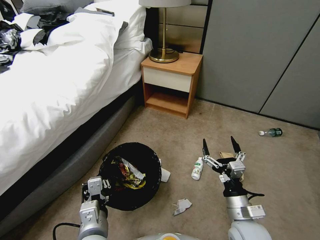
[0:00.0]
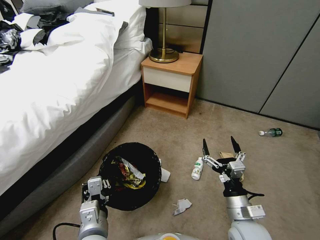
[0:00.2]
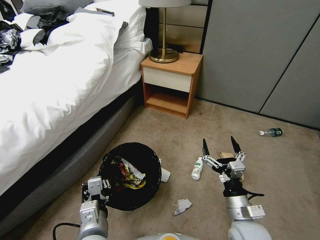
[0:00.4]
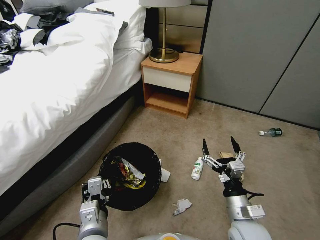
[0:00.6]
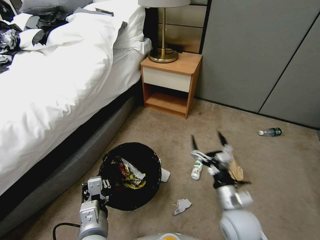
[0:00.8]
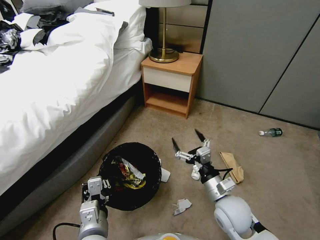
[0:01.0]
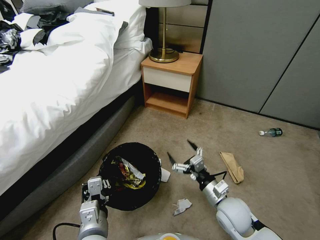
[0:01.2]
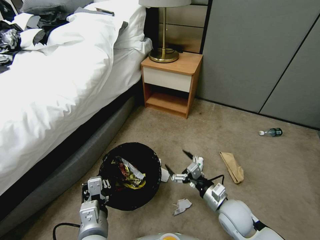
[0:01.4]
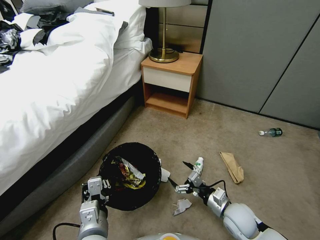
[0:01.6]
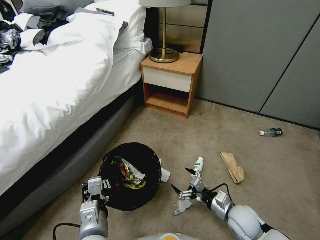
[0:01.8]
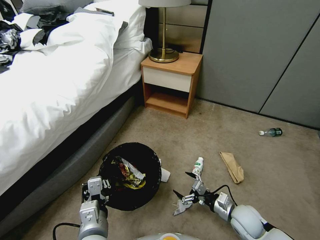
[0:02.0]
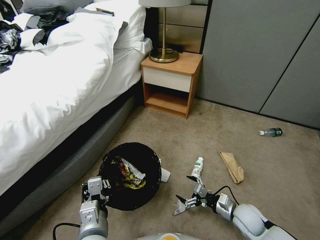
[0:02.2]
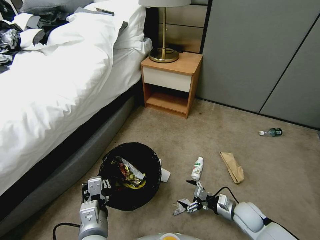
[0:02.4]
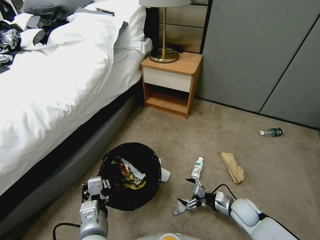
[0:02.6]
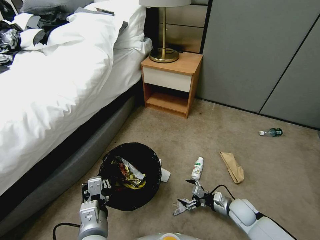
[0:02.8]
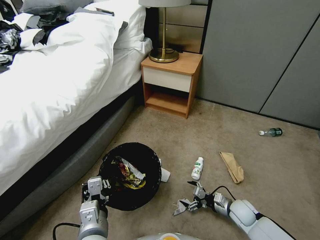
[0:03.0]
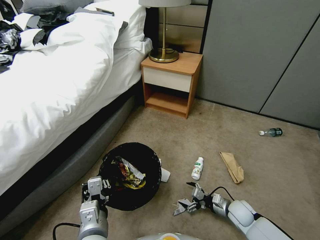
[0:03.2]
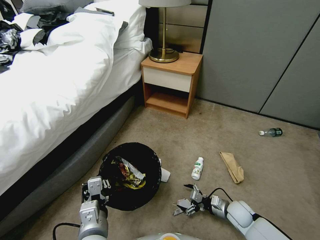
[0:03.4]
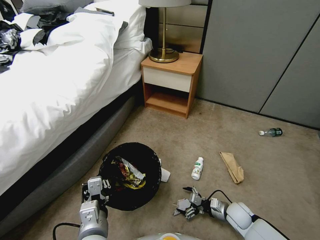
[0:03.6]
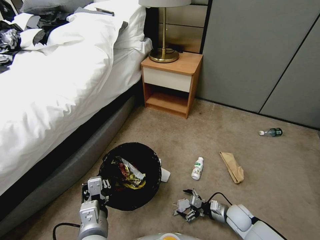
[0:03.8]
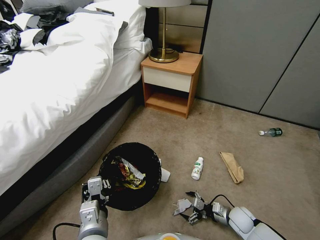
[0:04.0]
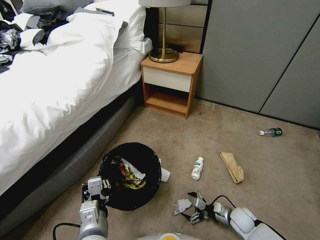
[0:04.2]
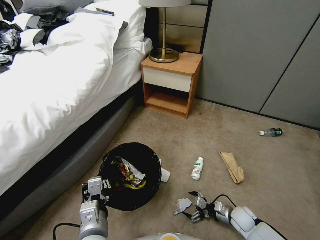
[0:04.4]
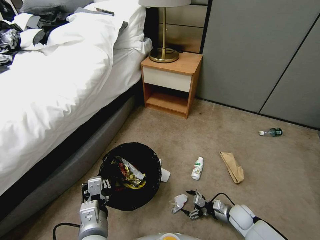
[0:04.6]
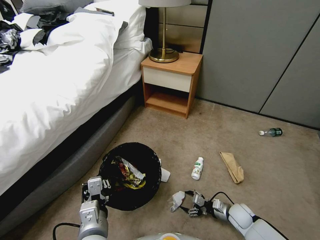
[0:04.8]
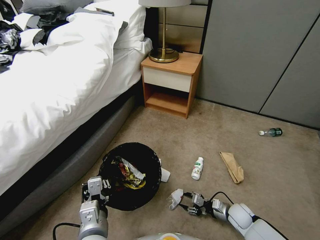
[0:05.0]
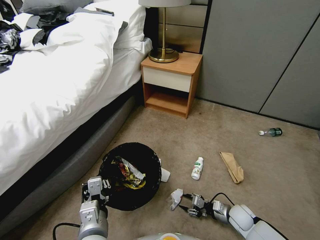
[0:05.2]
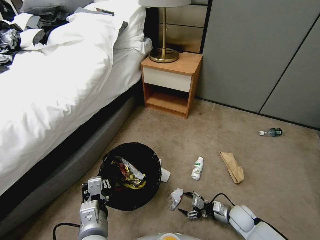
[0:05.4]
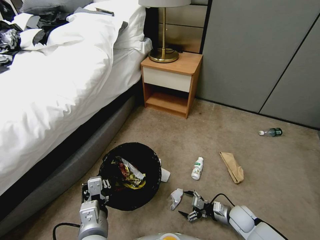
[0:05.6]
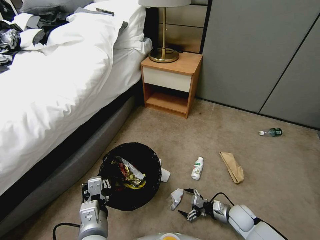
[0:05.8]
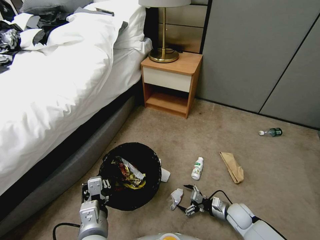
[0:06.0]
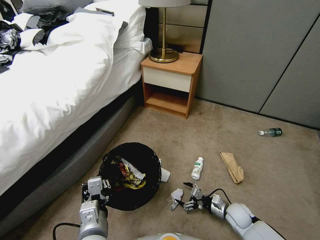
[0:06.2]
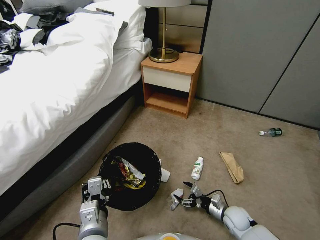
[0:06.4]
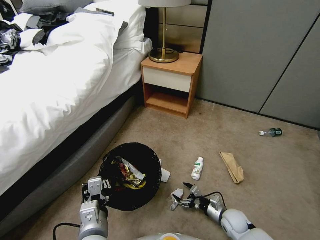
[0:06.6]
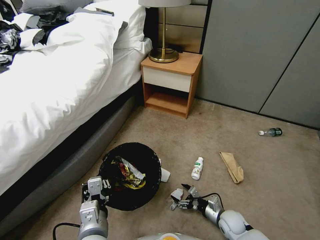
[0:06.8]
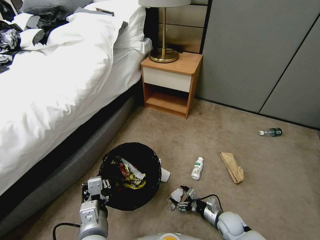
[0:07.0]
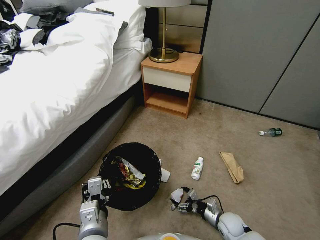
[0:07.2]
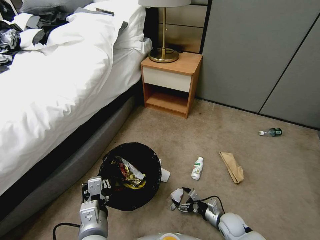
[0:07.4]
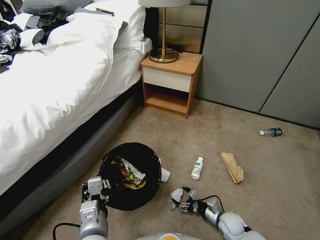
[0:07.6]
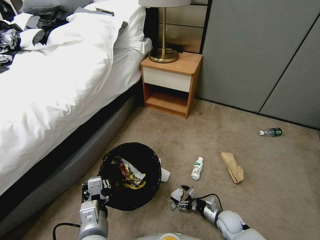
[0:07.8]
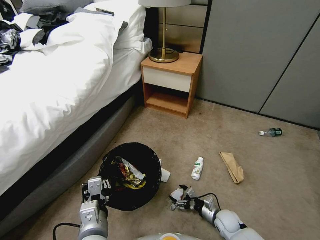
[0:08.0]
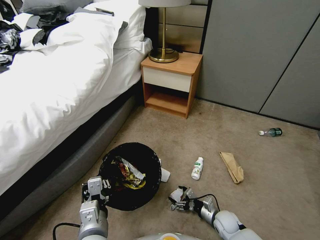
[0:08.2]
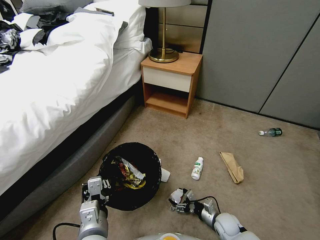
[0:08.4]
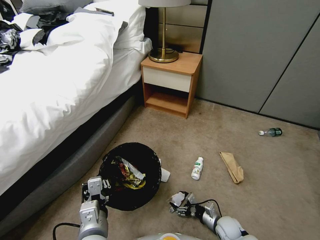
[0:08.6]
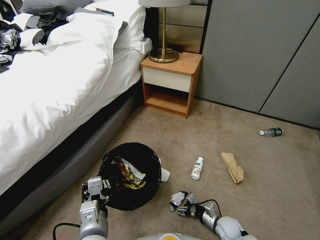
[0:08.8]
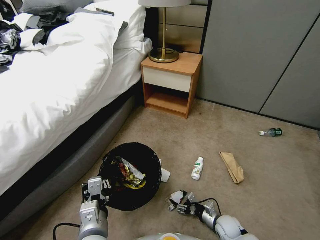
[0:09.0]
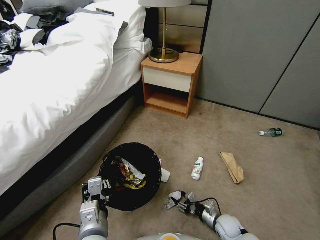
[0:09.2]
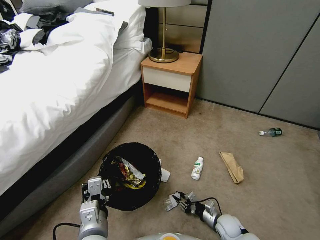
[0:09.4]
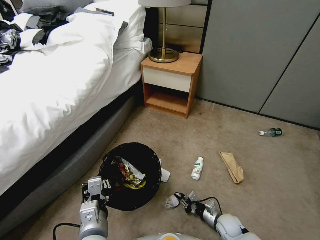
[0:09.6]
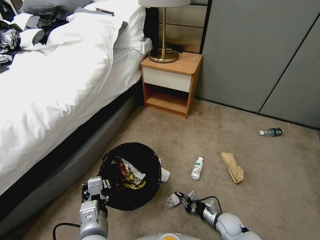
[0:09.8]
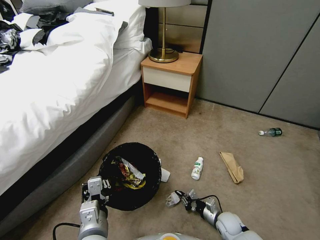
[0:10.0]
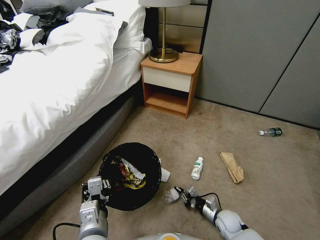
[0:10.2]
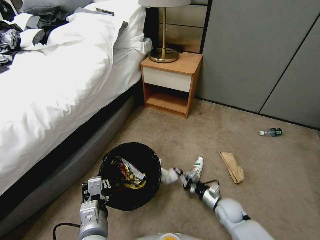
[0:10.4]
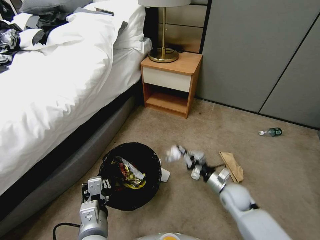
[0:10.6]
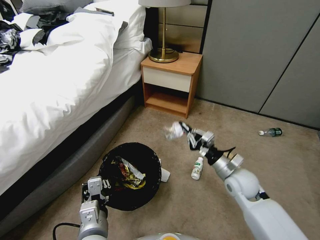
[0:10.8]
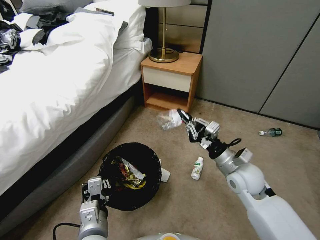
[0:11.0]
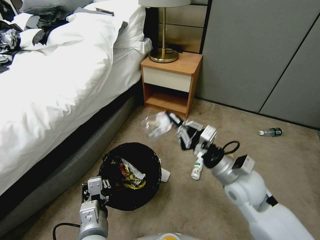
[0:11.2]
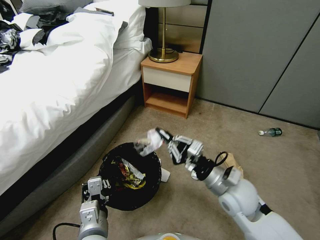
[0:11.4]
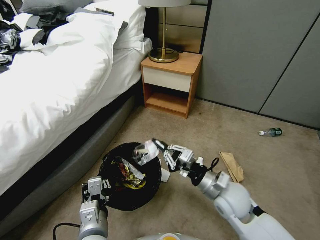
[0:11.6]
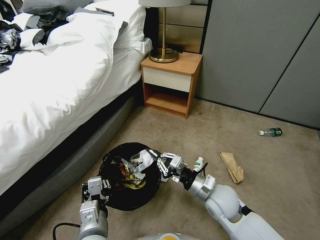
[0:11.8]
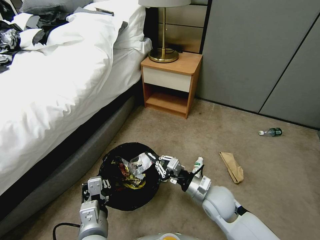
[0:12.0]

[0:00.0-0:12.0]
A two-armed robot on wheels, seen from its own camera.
Task of the whole recording: Pick up the trash bin, then pick up the garbage from the floor and place it into the trash bin.
0:00.0 to 0:01.6: The right gripper goes about 10 cm downward and forward.
0:01.6 to 0:03.0: The right gripper goes roughly 15 cm downward and to the right.
0:03.0 to 0:04.4: There are only small adjustments of the grippers.
0:04.4 to 0:06.0: The right gripper closes, then reopens.
0:06.0 to 0:07.6: The right gripper shifts by roughly 5 cm.
0:07.6 to 0:09.0: The grippers make only small movements.
0:09.0 to 0:10.4: The right gripper travels upward by about 5 cm, and closes up.
0:10.4 to 0:12.0: The right gripper shifts some 20 cm upward and to the left.

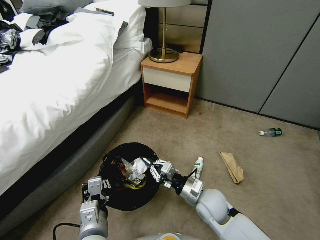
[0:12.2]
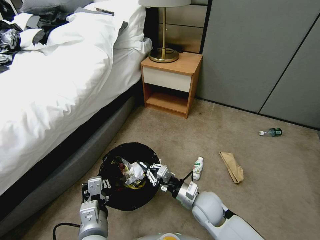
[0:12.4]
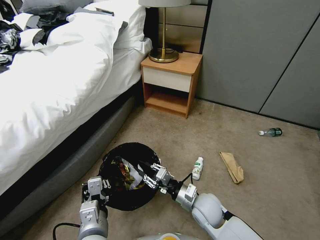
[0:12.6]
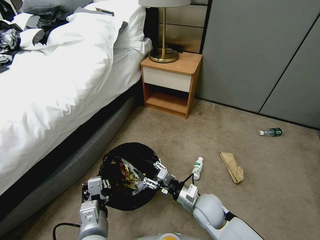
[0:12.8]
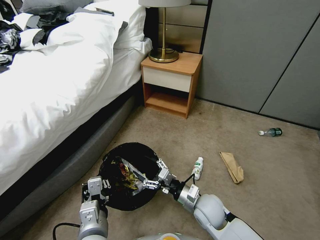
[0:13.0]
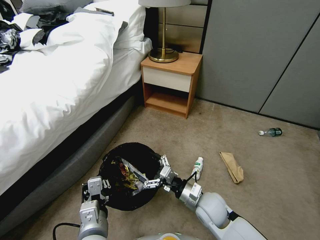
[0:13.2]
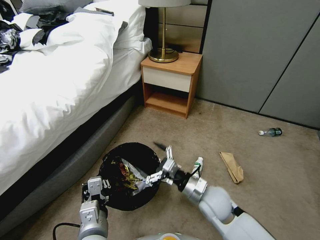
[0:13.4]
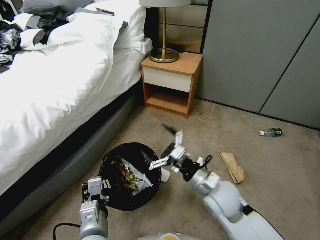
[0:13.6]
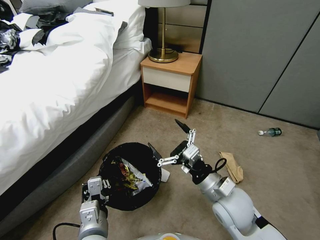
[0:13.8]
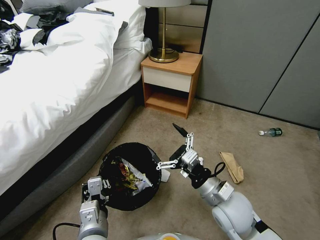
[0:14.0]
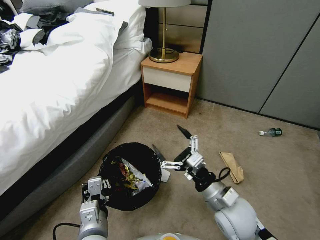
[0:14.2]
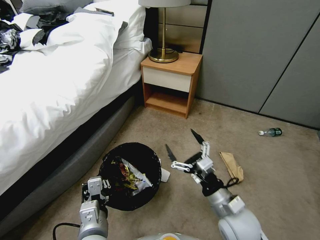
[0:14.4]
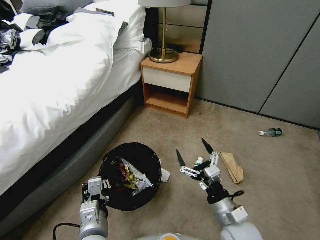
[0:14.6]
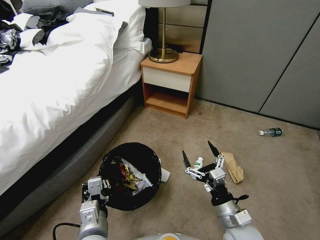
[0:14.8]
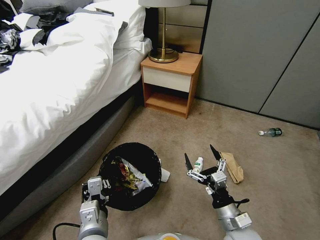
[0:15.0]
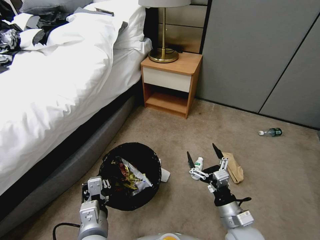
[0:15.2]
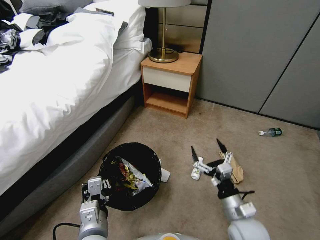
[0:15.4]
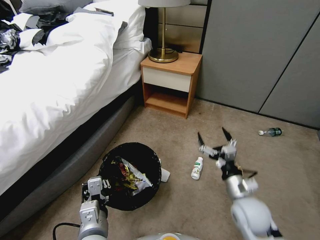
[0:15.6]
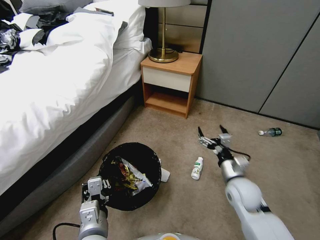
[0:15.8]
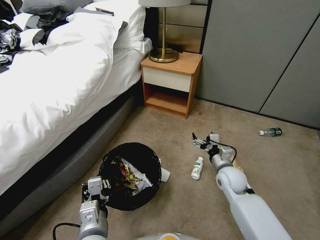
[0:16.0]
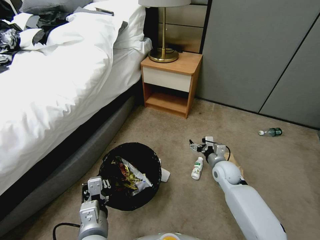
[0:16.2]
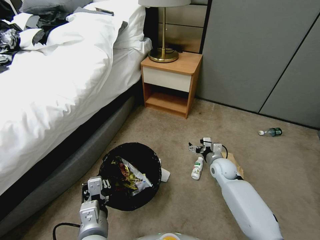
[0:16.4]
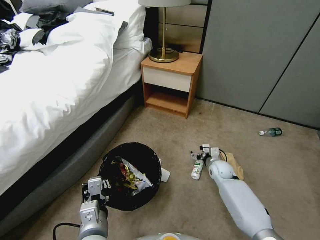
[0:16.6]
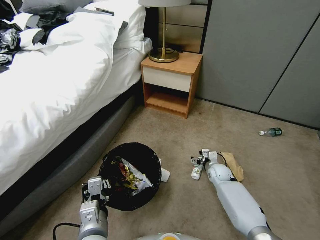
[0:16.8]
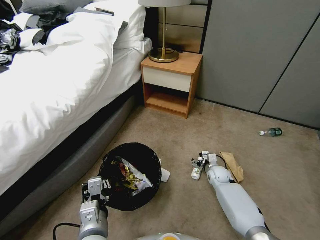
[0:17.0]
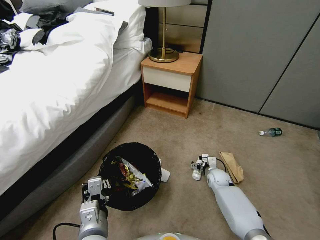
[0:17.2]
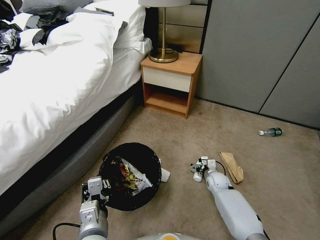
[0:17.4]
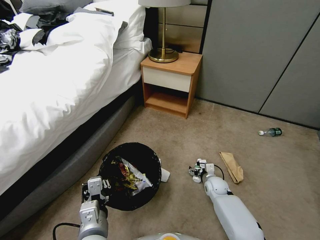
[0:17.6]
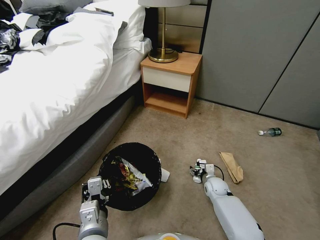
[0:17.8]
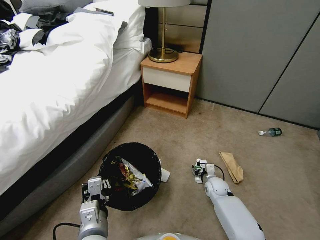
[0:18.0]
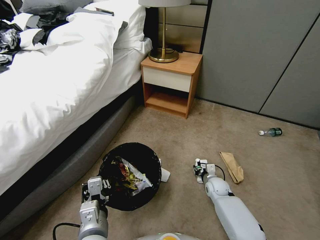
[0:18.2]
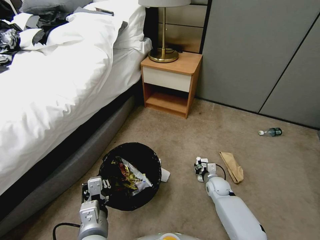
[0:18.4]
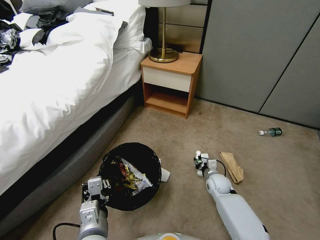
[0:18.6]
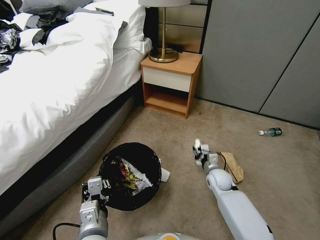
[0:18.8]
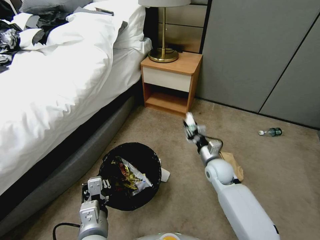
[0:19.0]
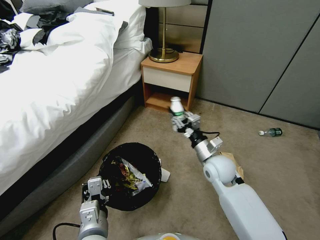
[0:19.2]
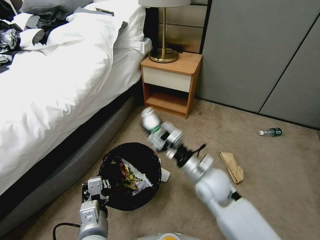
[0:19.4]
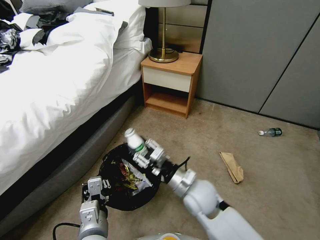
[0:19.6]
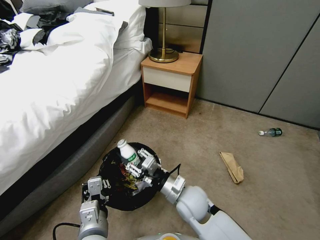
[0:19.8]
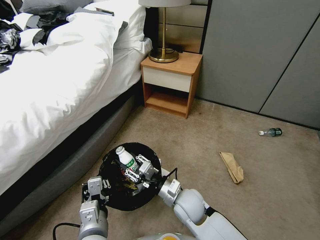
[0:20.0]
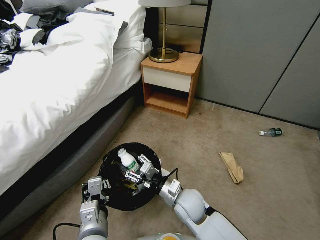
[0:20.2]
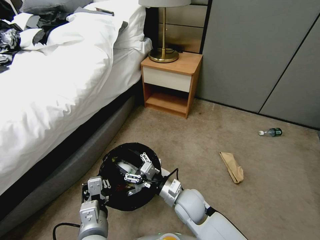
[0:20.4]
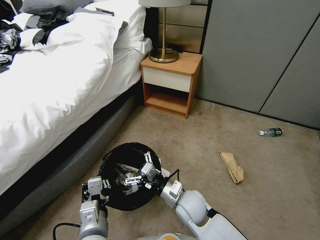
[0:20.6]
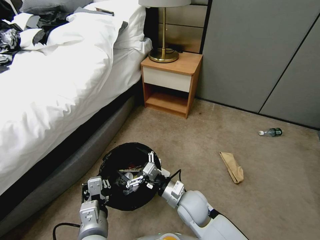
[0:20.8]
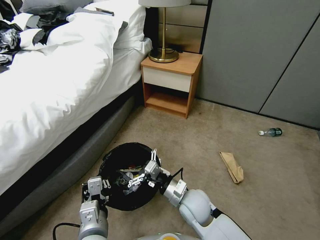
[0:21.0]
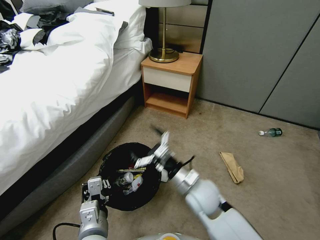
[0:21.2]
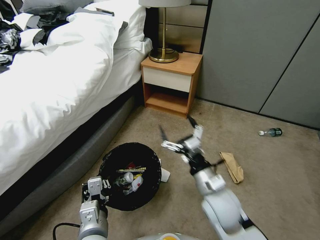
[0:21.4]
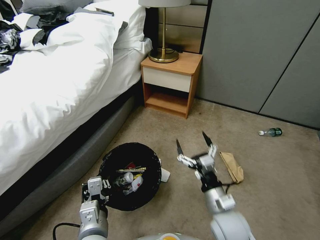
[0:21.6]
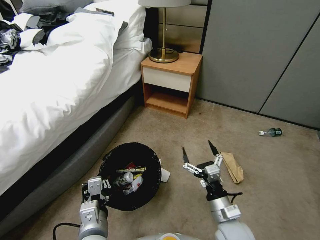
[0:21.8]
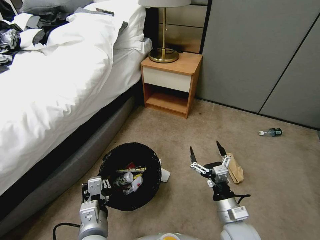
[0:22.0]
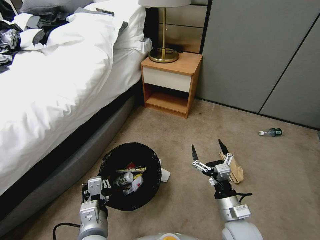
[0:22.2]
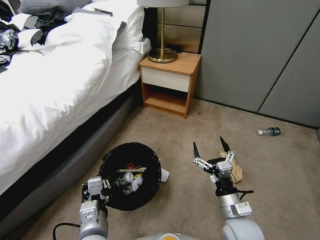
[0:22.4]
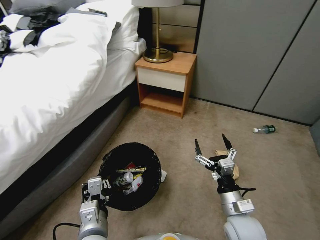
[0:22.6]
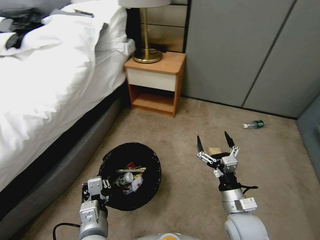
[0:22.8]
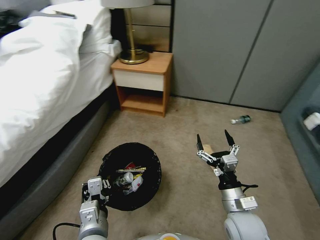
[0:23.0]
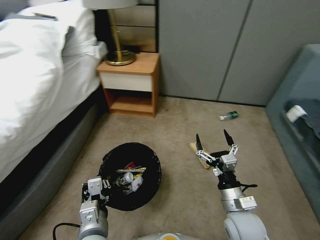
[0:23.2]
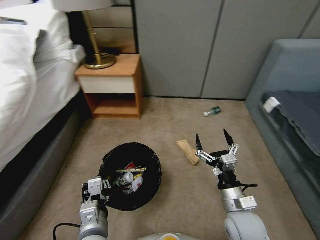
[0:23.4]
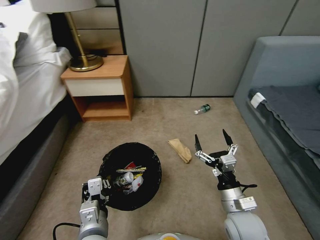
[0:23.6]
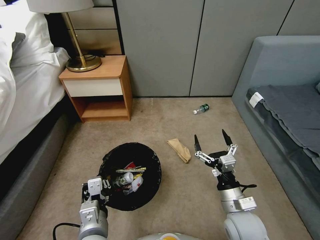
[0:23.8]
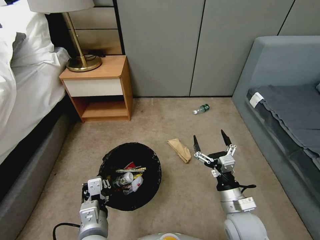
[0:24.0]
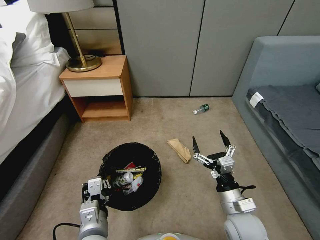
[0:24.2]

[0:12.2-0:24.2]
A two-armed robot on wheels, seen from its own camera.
Task of the whole recording: Pick up the trash bin, then pick up the garbage from the floor and place it into the trash bin.
0:12.2 to 0:13.8: The right gripper goes roughly 10 cm upward, and opens up.
0:13.8 to 0:15.2: The right gripper is displaced downward and backward by some 10 cm.
0:15.2 to 0:16.6: The right gripper shifts about 25 cm forward.
0:16.6 to 0:18.2: The right gripper shifts approximately 10 cm downward and backward, and closes its fingers.
0:18.2 to 0:19.8: The right gripper moves upward, to the left and backward, roughly 25 cm.
0:19.8 to 0:21.2: The right gripper opens.
0:21.2 to 0:22.6: The right gripper goes about 15 cm to the right and backward.
